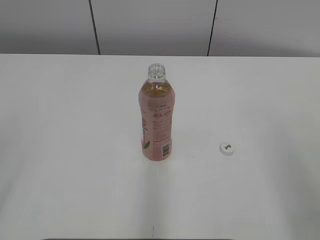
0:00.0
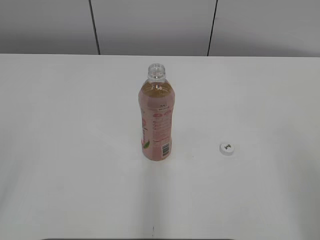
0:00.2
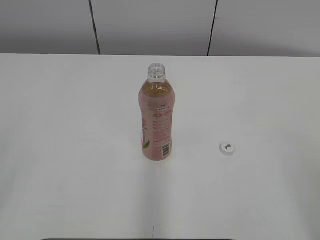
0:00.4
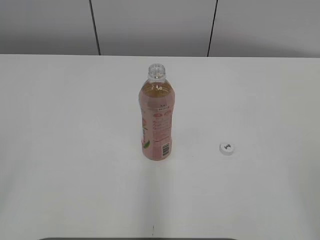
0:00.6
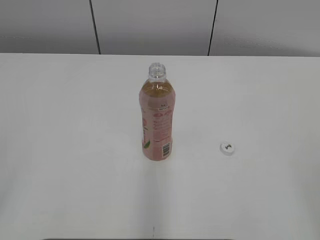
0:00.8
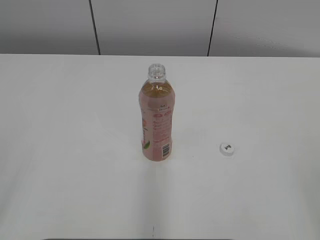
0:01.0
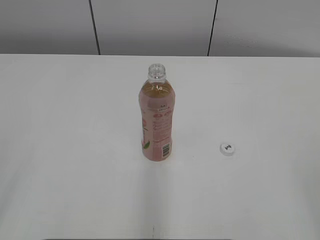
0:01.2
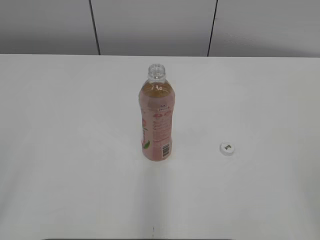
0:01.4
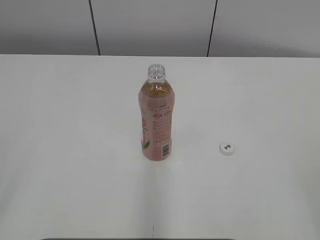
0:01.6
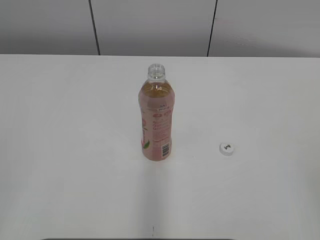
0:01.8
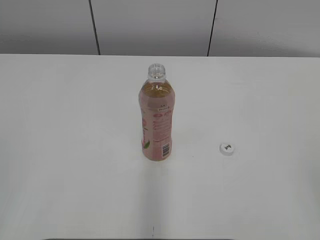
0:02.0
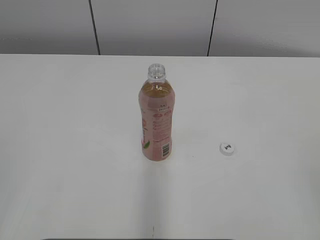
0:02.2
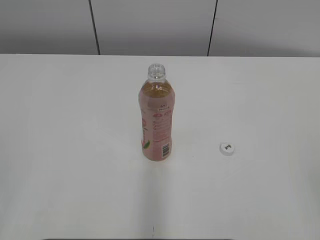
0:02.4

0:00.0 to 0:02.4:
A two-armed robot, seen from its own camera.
0:00.0 to 0:01.2: The right gripper moves backward, about 10 cm.
